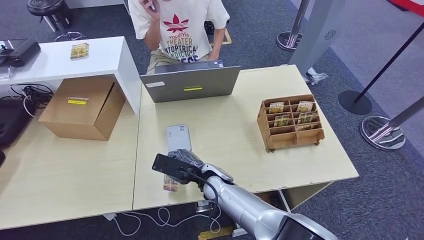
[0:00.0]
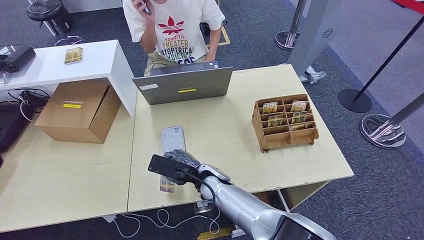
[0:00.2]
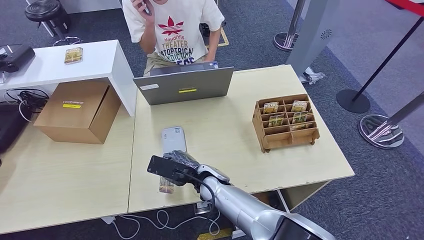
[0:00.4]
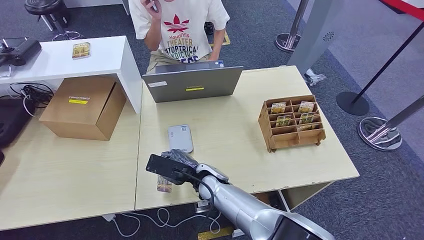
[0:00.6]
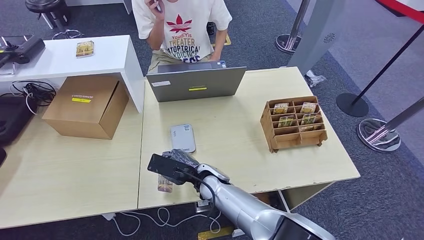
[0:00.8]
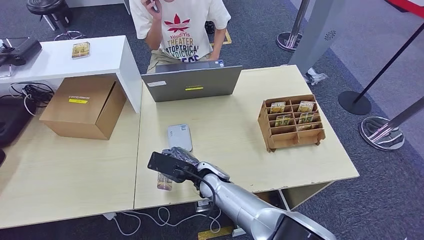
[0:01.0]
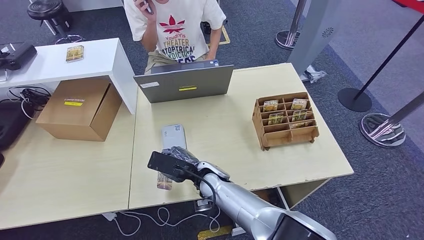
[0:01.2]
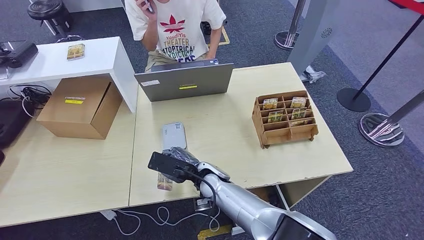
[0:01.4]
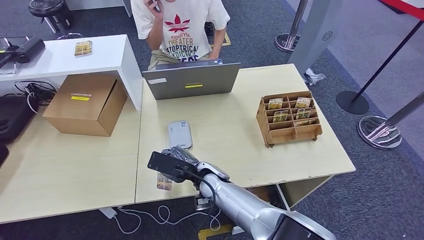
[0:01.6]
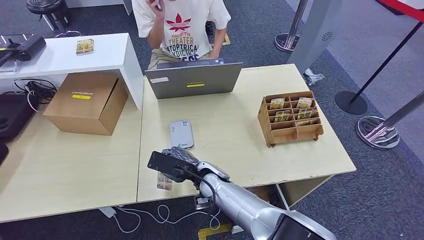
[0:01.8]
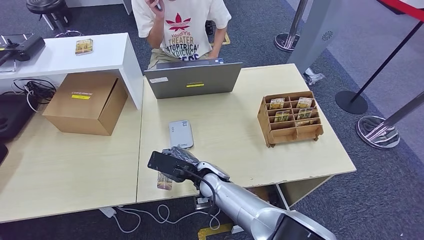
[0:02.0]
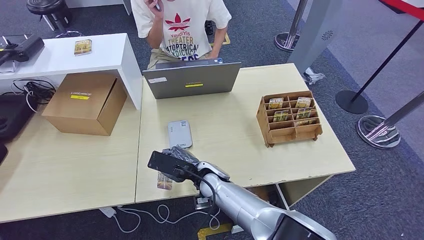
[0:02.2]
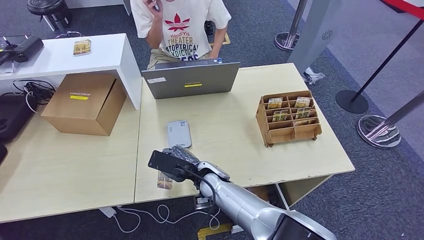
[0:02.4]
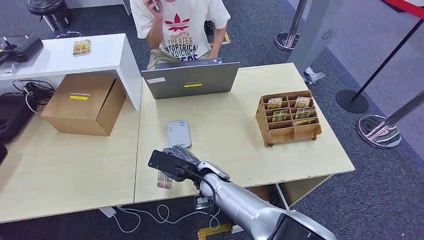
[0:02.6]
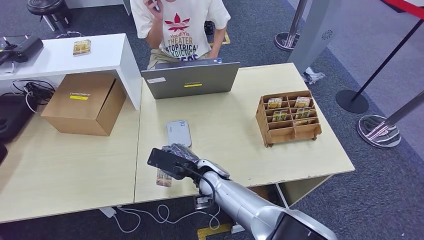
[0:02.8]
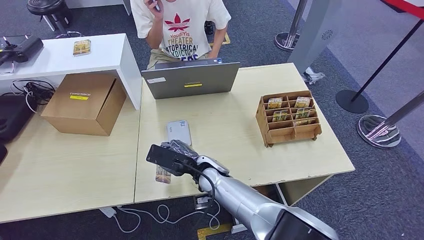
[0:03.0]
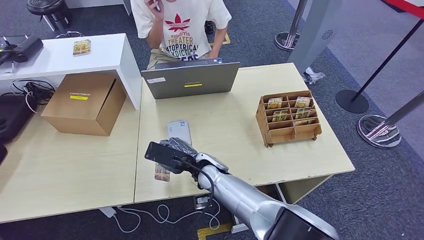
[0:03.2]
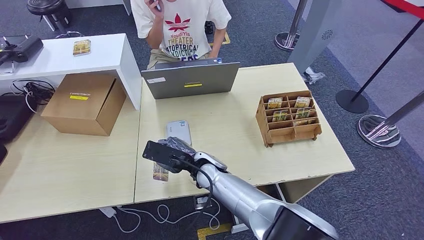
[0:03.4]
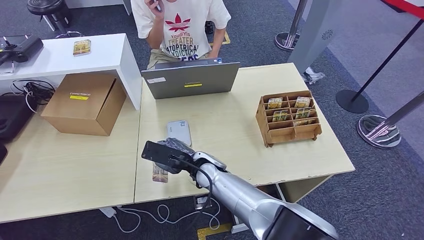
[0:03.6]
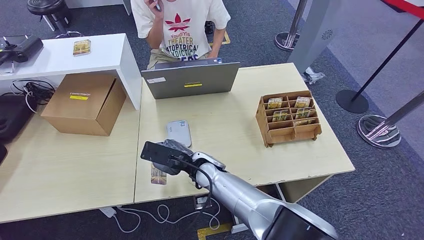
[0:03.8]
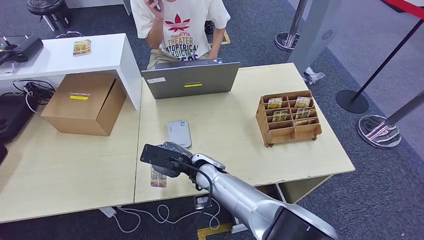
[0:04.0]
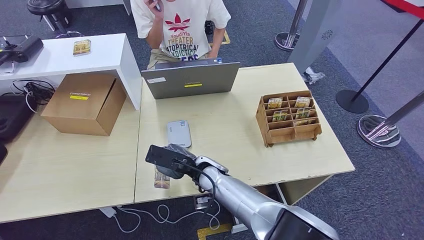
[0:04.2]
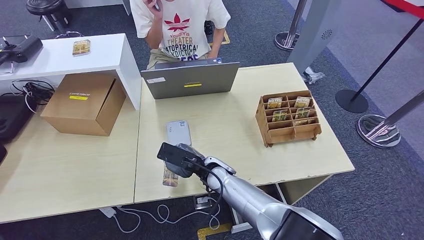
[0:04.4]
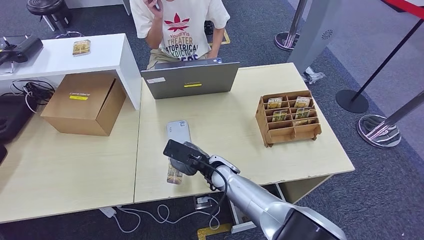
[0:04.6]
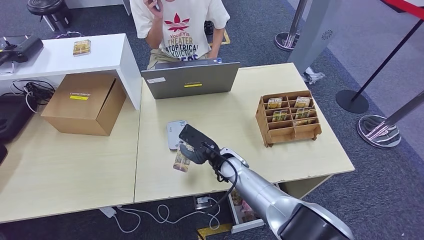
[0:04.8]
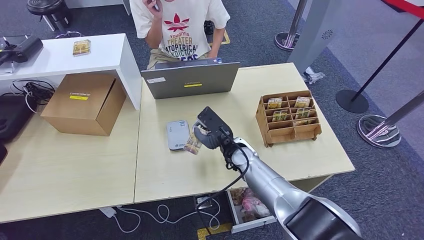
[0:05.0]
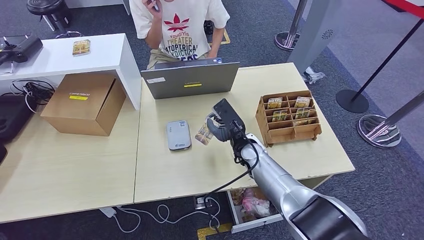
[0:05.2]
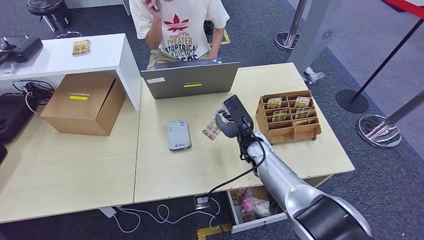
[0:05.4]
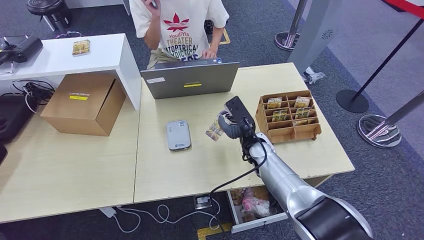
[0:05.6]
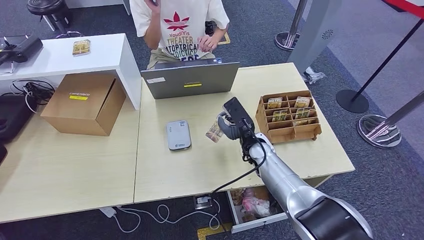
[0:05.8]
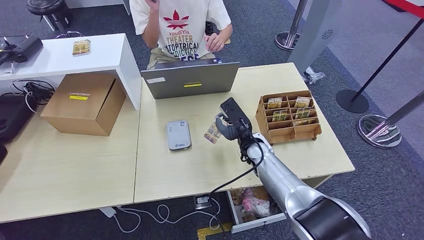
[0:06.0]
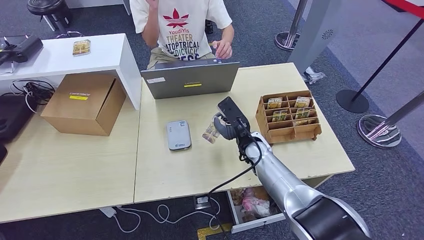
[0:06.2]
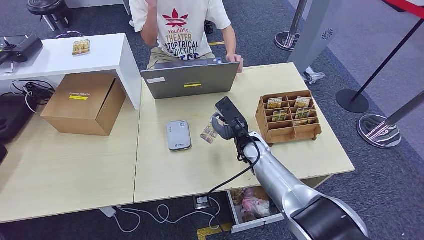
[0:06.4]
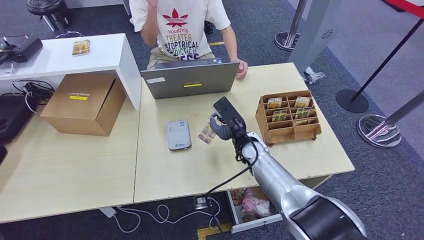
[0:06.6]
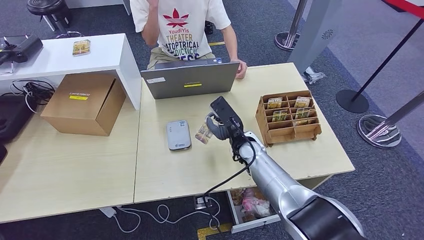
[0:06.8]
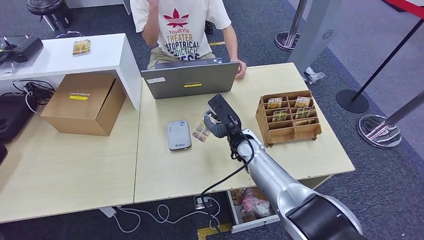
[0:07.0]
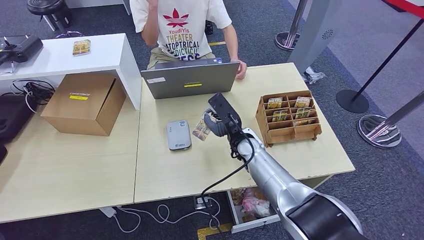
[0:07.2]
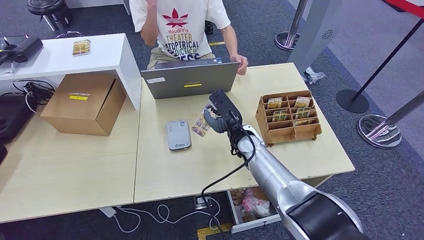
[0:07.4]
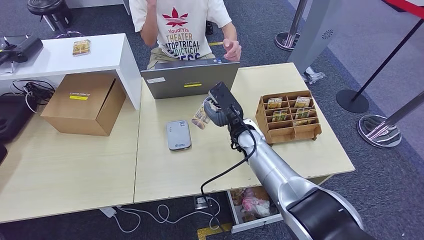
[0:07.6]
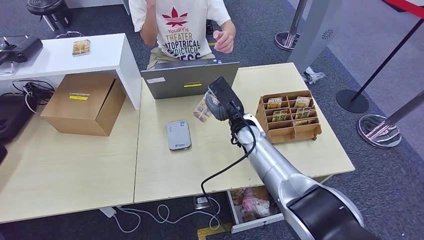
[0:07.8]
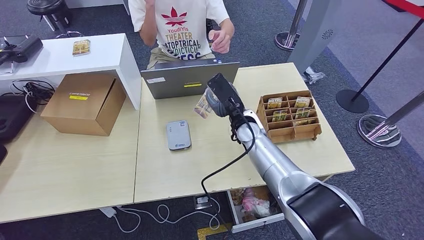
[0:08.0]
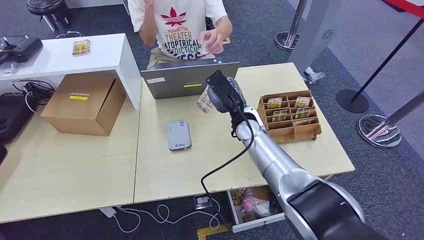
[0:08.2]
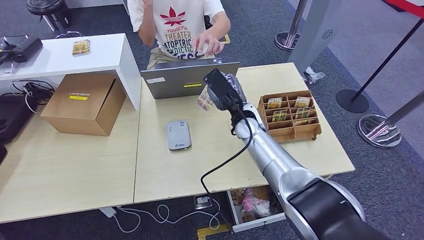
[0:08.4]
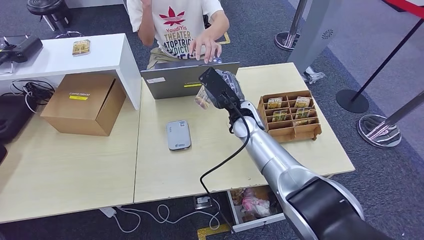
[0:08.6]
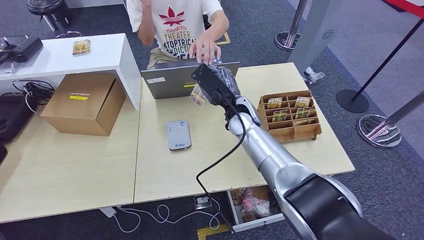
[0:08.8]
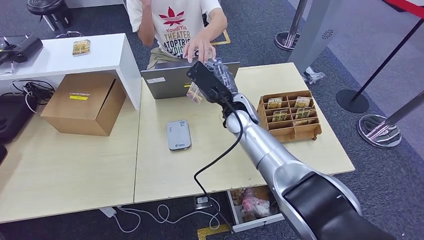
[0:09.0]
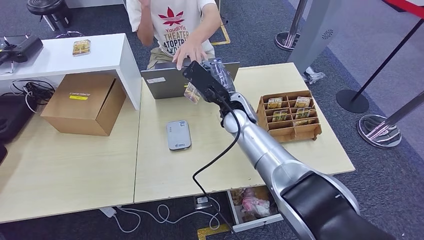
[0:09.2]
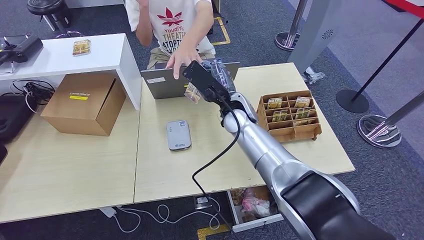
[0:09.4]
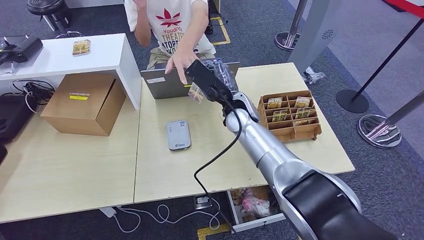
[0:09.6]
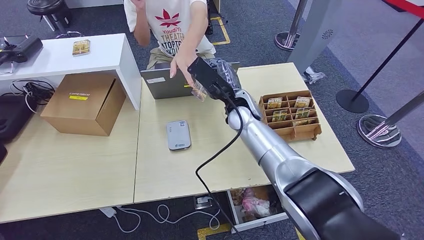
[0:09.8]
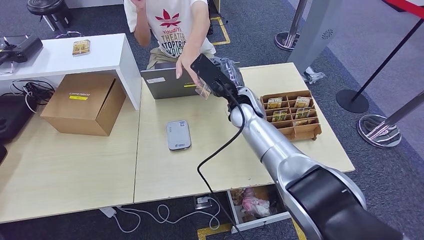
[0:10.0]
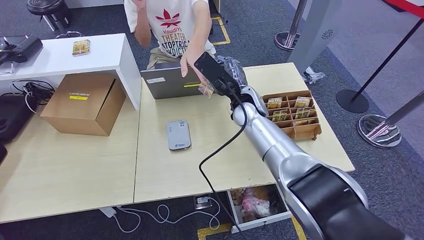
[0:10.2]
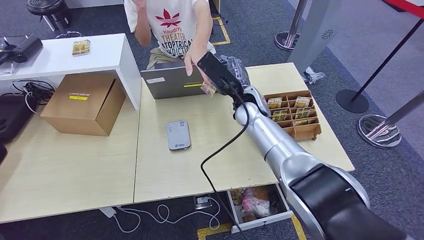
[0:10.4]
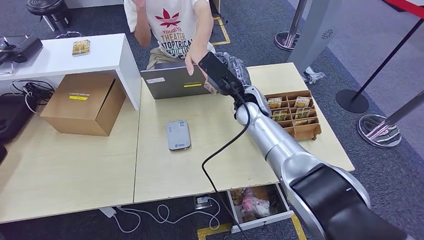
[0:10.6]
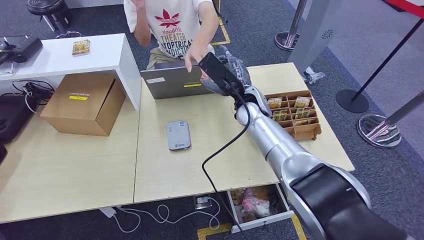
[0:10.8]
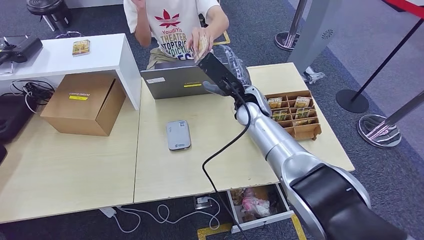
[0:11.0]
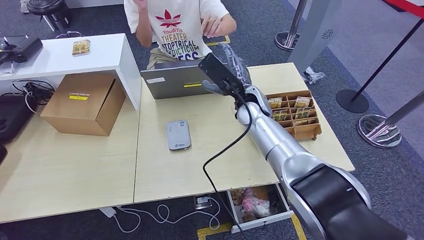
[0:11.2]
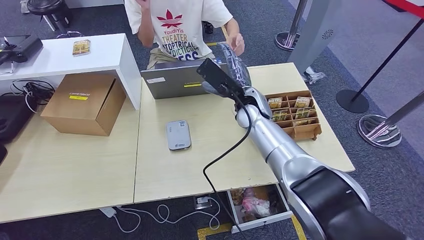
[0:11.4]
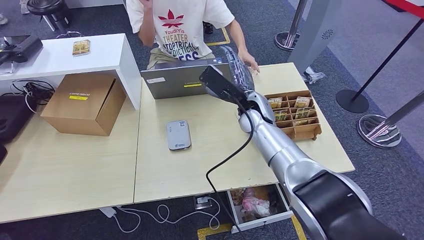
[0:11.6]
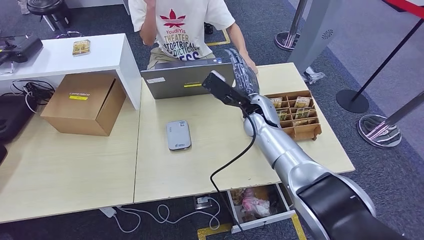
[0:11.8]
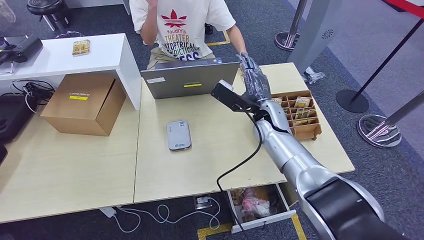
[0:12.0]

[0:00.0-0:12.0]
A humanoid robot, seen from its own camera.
Step, 0:00.0 to 0:02.6: Place the ID card on the card reader.
0:00.0 to 0:01.6: Both hands stay about where they are.
0:01.6 to 0:04.4: The hands stay close to where they were, moving slightly.
0:04.4 to 0:06.0: The right hand travels to the right by about 10 cm.
0:06.0 to 0:07.6: The right hand moves roughly 5 cm.
0:07.6 to 0:09.0: The right hand travels upward by approximately 5 cm.
0:09.0 to 0:10.4: There are only small adjustments of the hands.
0:10.4 to 0:12.0: The right hand travels to the right by some 5 cm.

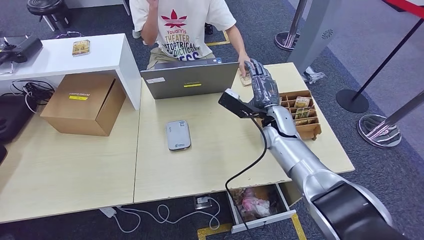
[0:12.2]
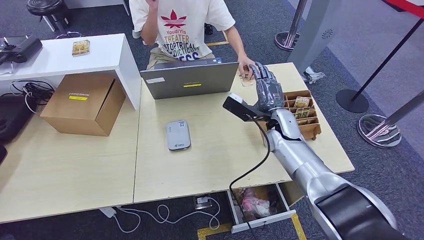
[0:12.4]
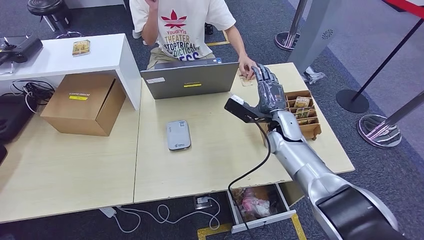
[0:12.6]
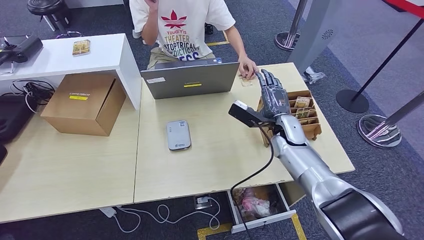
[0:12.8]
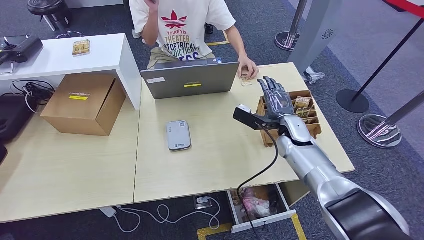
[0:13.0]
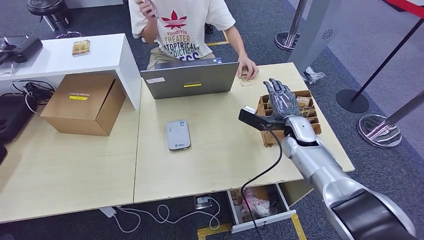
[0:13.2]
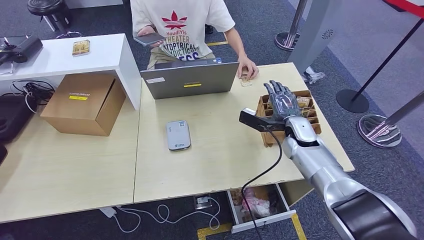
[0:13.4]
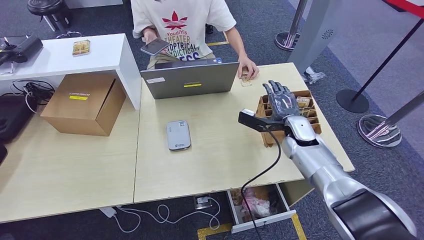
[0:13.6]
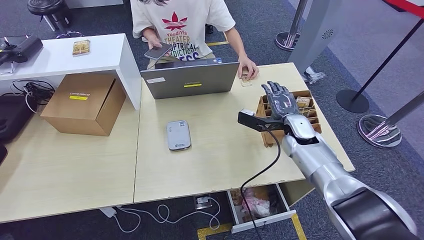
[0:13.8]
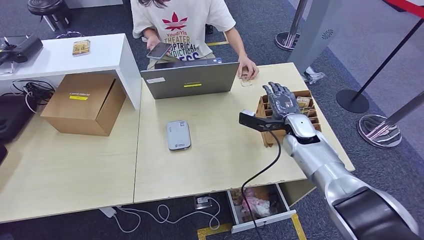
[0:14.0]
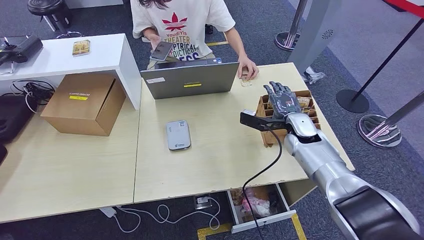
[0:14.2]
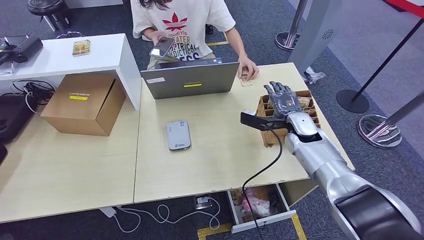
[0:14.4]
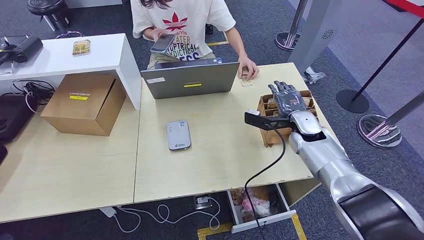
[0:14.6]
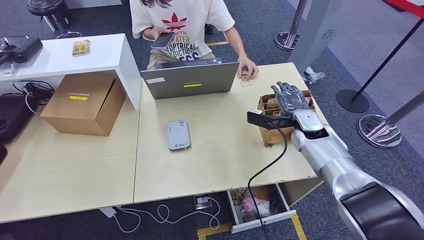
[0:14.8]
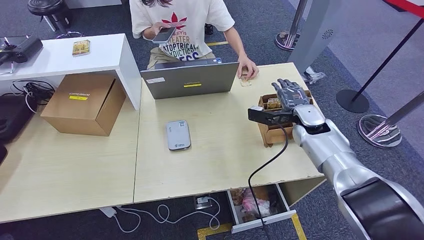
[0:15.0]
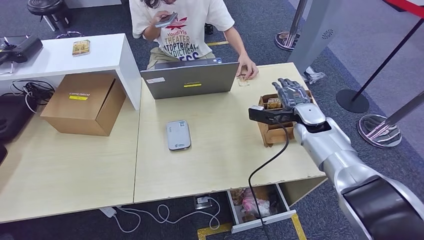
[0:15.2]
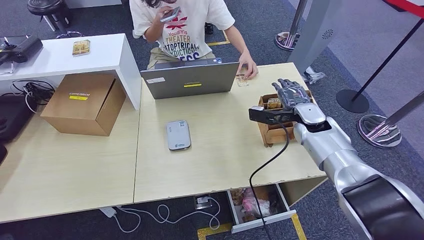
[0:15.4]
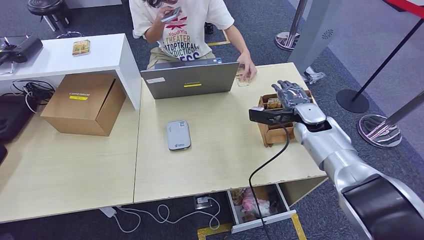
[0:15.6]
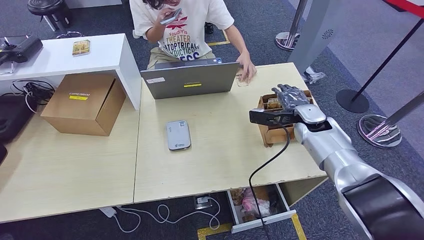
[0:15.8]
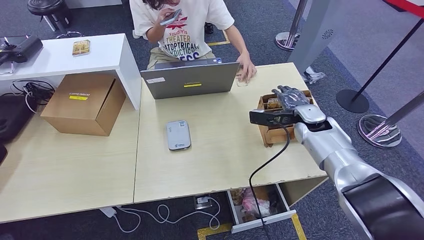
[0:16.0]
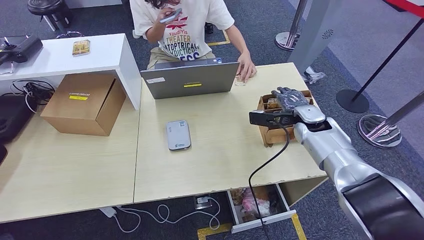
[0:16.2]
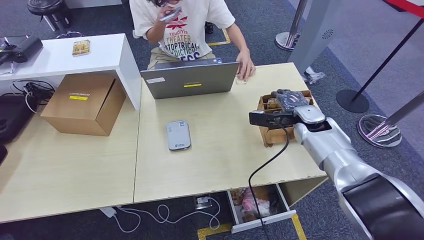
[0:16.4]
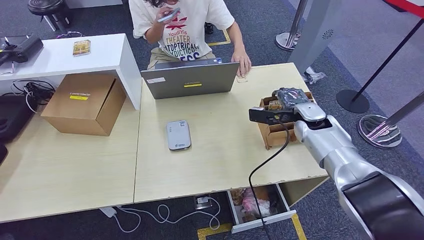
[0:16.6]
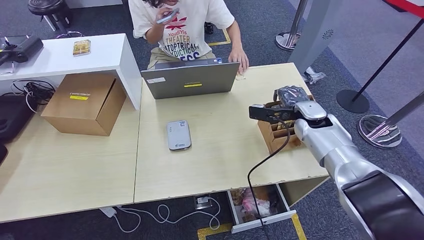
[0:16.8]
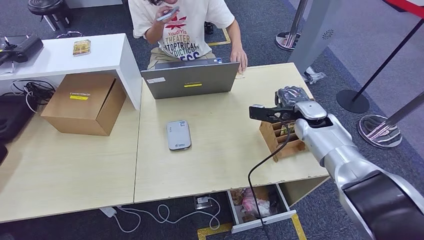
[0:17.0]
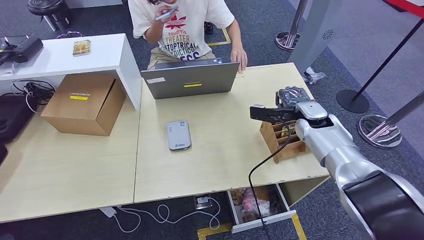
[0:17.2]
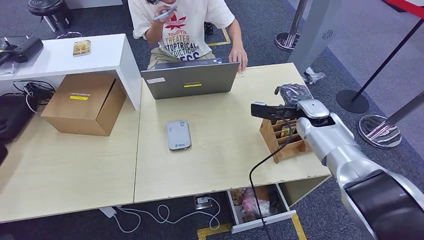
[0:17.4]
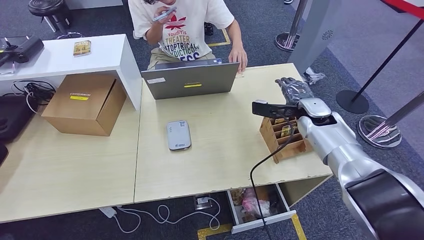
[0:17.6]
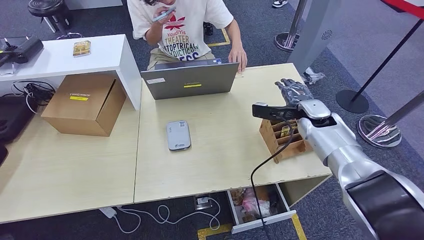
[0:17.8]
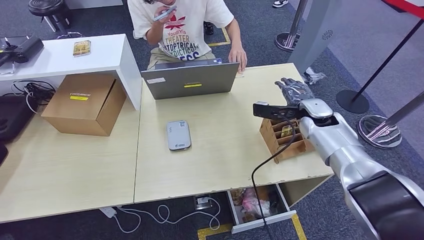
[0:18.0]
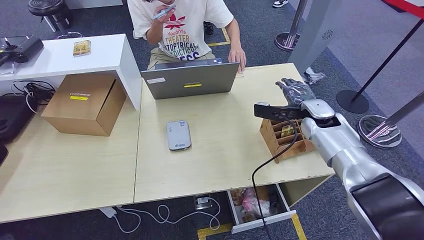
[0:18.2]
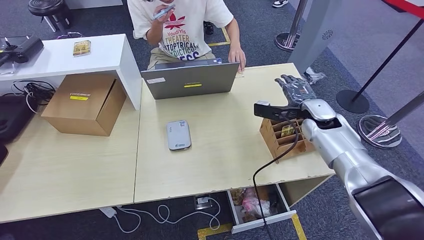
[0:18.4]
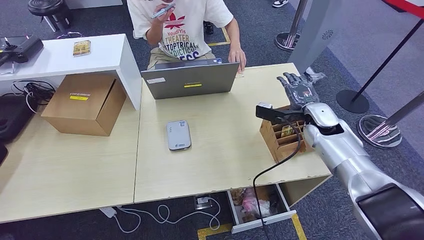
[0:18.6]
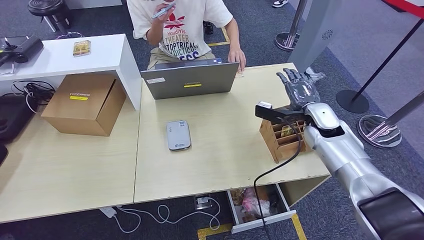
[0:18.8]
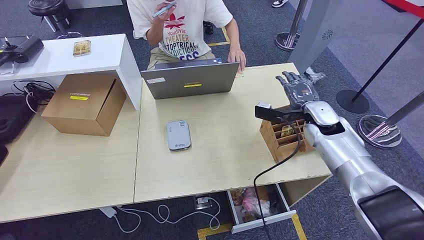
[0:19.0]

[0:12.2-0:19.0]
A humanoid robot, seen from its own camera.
0:12.2 to 0:13.6: The right hand goes roughly 10 cm to the right.
0:13.6 to 0:15.0: The hands make only small movements.
0:15.0 to 0:19.0: There are only small adjustments of the hands.
